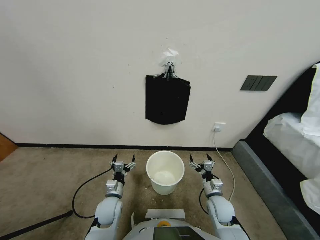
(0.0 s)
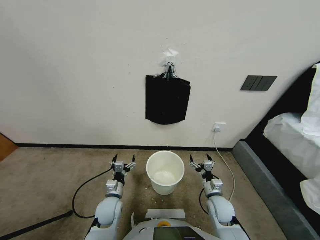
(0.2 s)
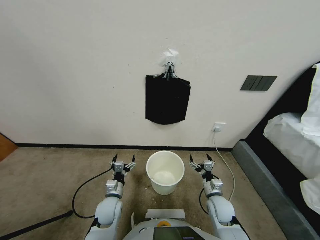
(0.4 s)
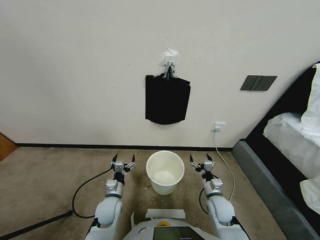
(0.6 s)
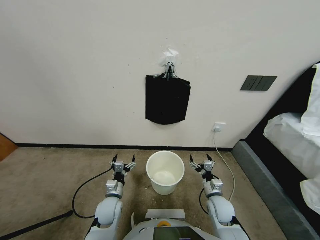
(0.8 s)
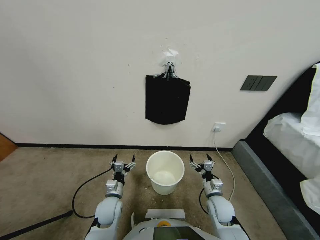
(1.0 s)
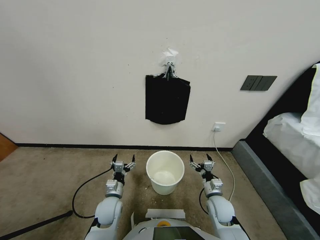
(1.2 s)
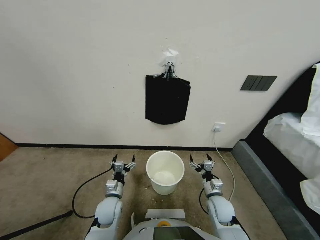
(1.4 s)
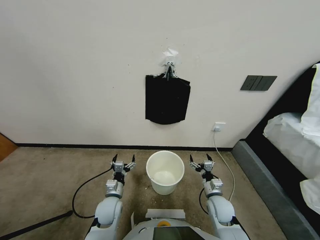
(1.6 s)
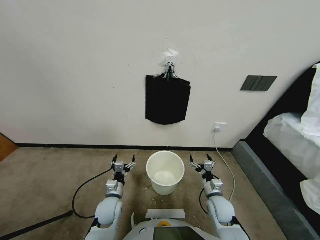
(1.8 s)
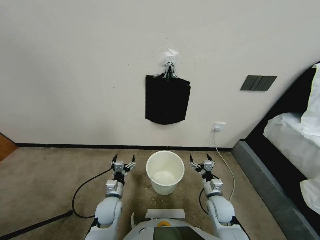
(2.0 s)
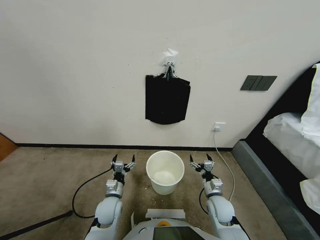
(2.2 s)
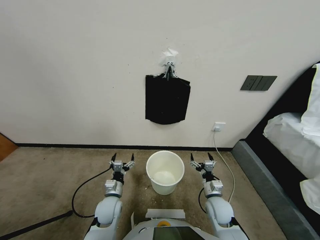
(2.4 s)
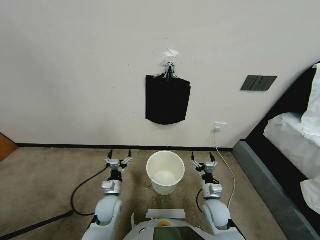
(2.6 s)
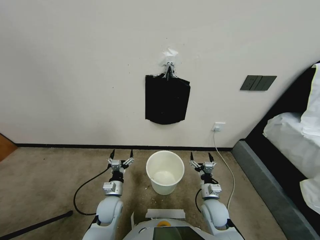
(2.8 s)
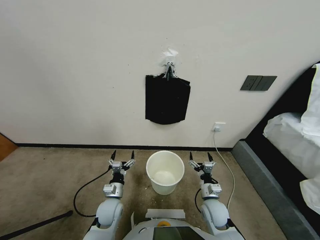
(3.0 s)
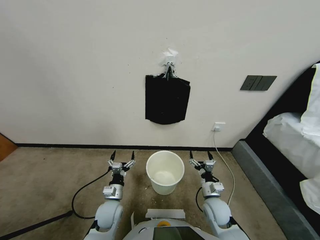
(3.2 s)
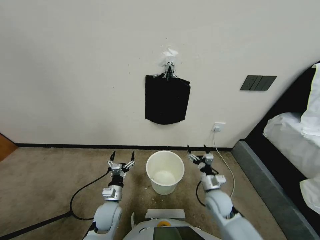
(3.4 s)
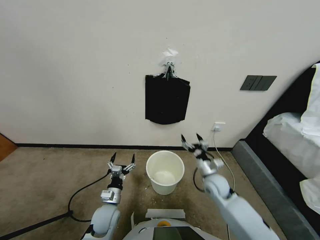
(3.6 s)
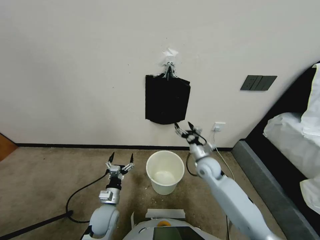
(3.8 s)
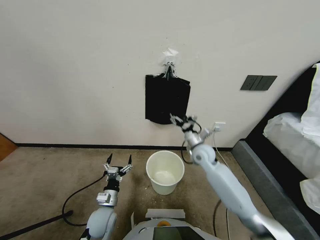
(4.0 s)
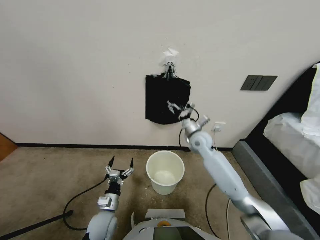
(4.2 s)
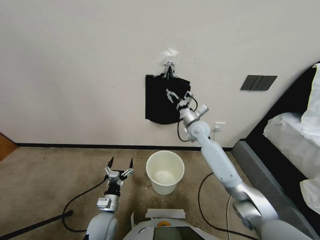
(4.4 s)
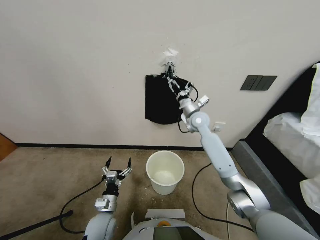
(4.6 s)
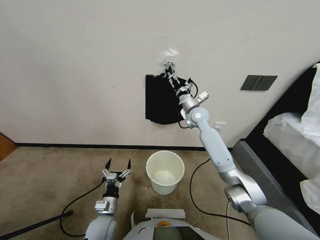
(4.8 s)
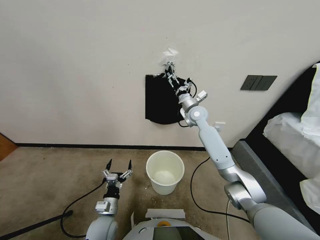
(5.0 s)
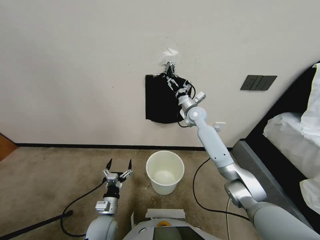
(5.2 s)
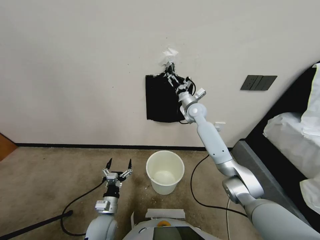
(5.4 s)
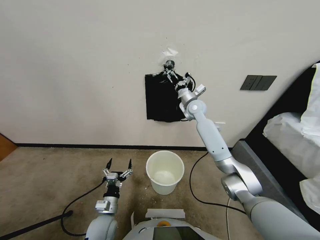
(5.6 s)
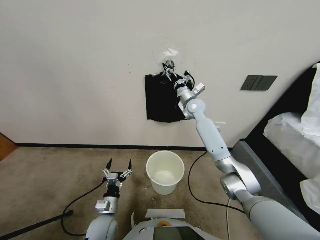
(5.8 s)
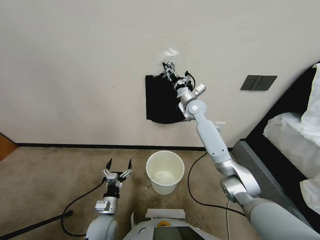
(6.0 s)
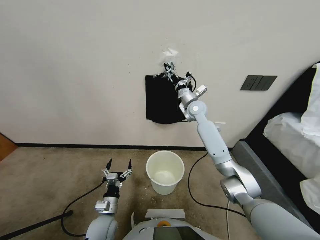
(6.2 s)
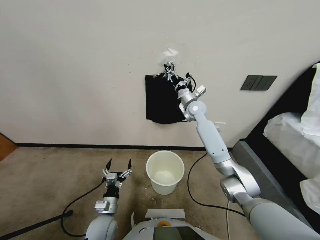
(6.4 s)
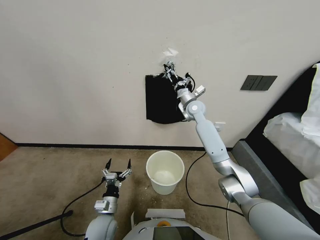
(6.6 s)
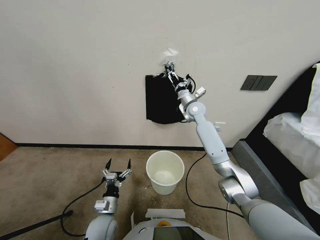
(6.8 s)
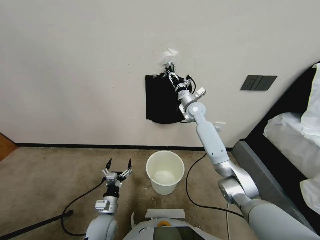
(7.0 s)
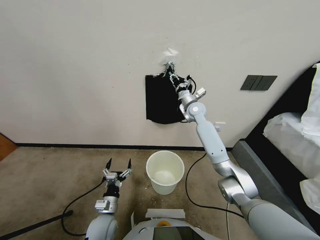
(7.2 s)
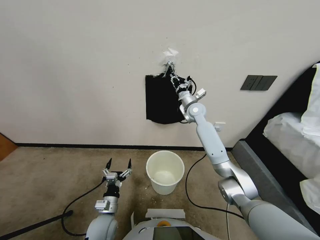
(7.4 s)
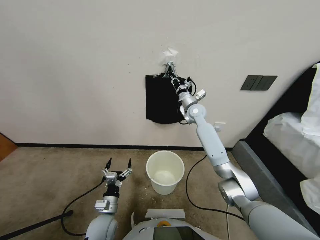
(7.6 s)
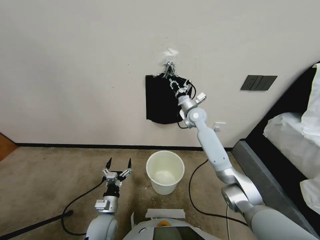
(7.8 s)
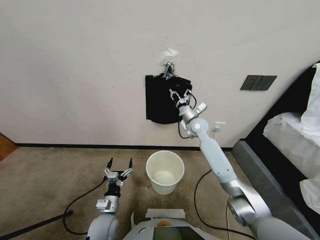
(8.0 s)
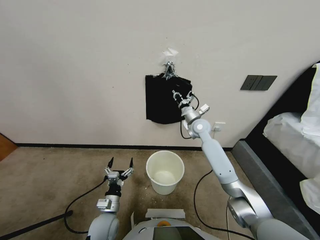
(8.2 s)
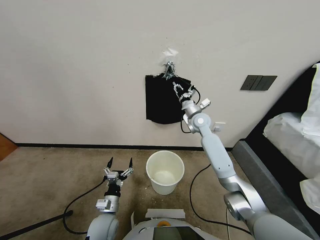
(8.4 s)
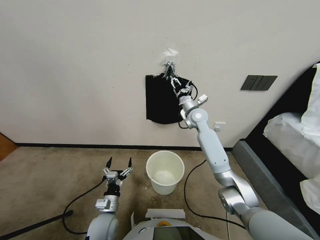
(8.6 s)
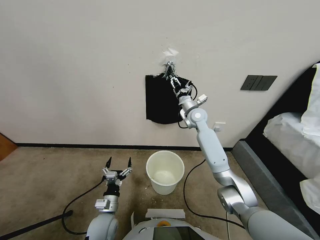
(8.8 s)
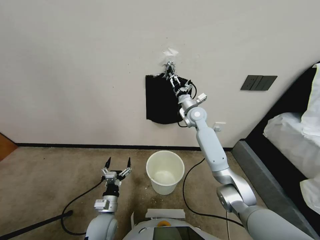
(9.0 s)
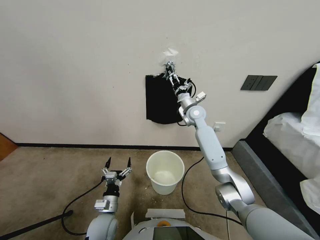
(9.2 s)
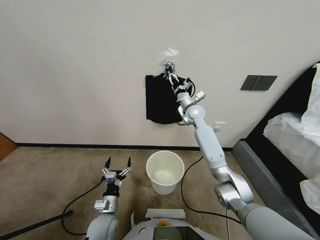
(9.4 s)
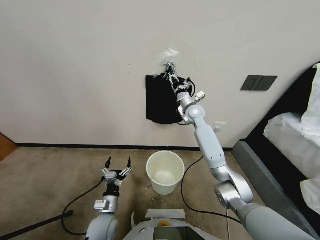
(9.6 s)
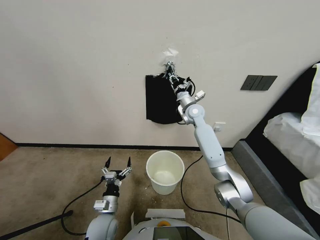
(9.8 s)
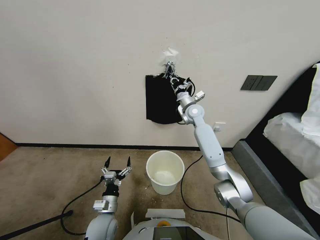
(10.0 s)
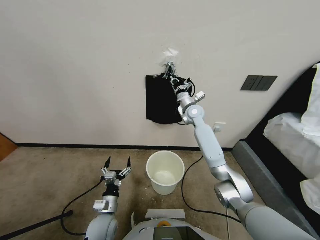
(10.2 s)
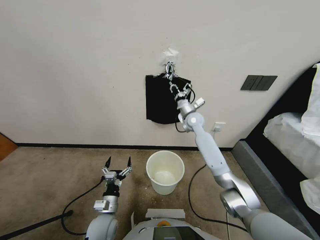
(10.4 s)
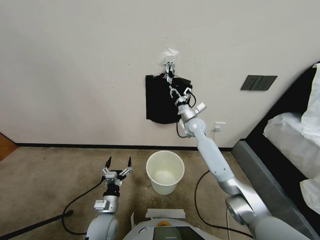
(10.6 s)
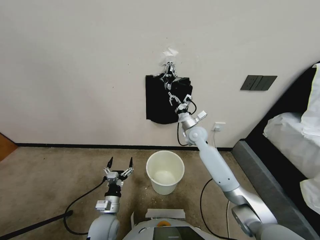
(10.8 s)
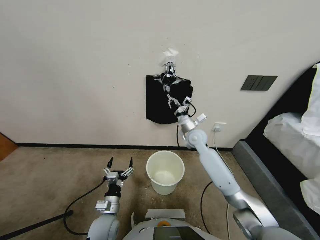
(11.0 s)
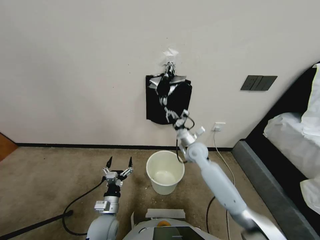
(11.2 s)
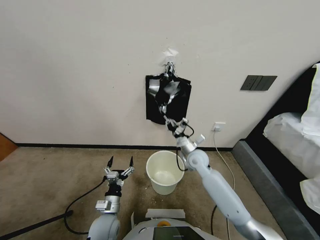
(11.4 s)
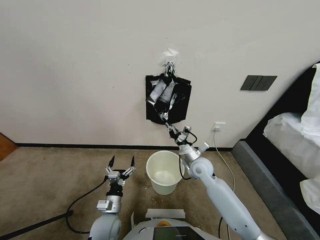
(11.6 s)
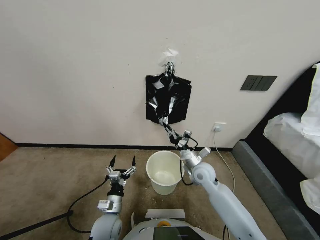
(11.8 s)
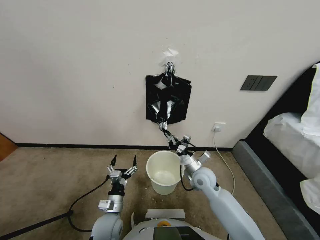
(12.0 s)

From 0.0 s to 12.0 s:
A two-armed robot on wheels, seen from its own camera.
Task of the whole recording: Place a trash bag onto the trash bin.
From 1.6 s to 3.0 s: The grippers move only a little.
From 3.0 s to 4.4 s: The right gripper shifts about 40 cm forward and upward.
From 4.4 s to 6.0 s: The right gripper heads forward, covering approximately 5 cm.
From 6.0 s to 7.6 s: The right gripper closes up.
From 7.6 s to 9.0 s: The right gripper opens its fingers.
From 9.0 s to 10.4 s: The right gripper moves roughly 5 cm, and closes up.
From 10.4 s to 12.0 s: The right gripper is displaced backward and downward by about 25 cm.

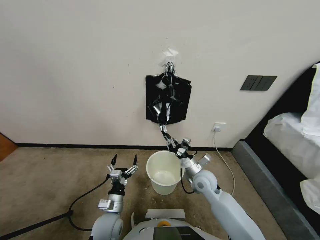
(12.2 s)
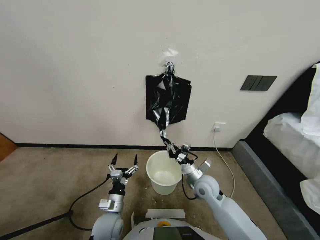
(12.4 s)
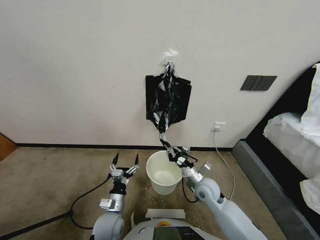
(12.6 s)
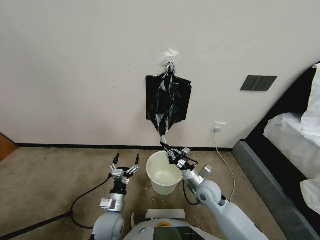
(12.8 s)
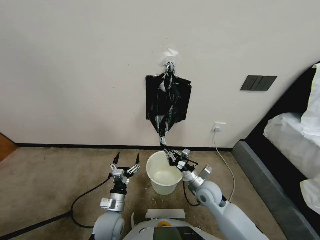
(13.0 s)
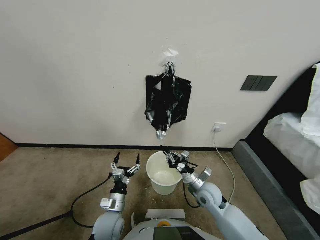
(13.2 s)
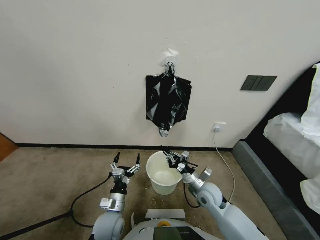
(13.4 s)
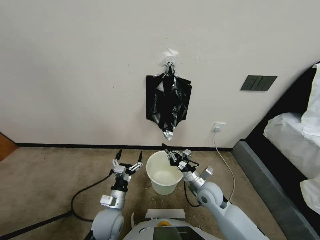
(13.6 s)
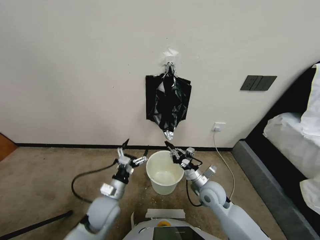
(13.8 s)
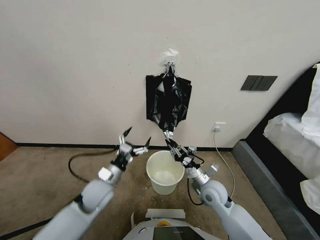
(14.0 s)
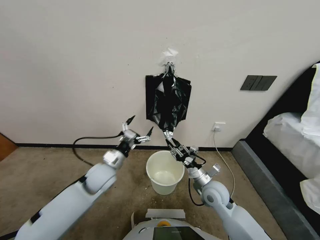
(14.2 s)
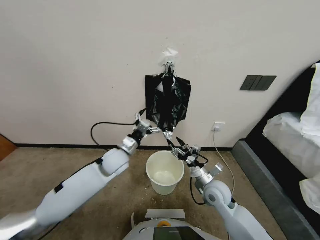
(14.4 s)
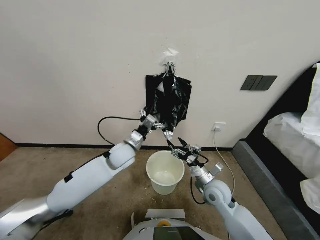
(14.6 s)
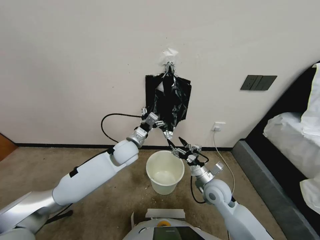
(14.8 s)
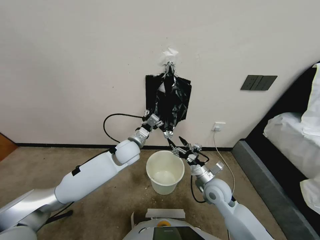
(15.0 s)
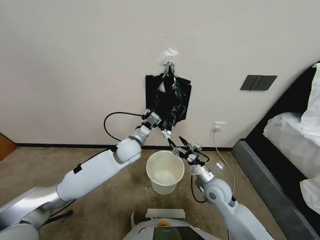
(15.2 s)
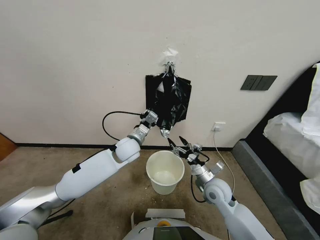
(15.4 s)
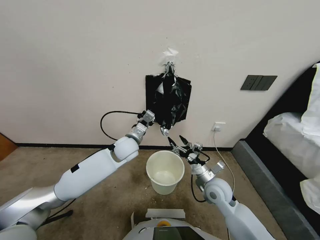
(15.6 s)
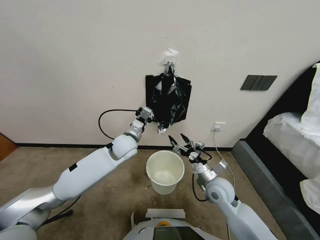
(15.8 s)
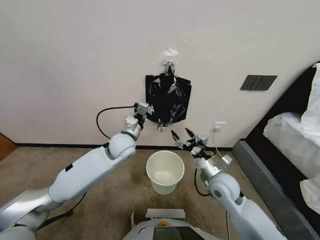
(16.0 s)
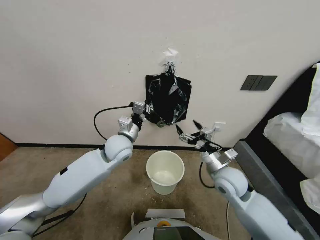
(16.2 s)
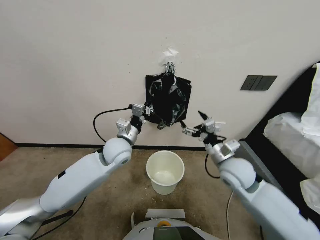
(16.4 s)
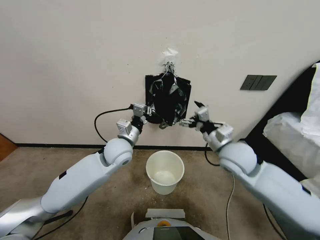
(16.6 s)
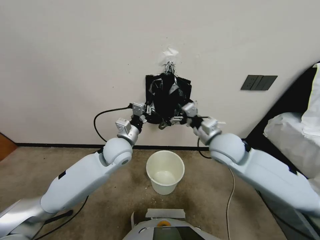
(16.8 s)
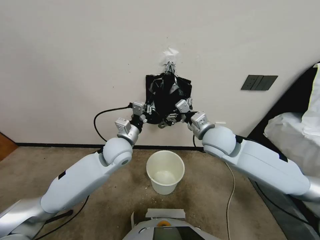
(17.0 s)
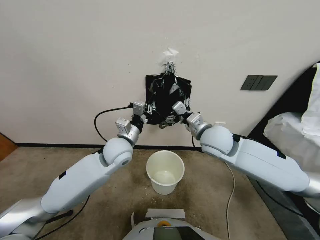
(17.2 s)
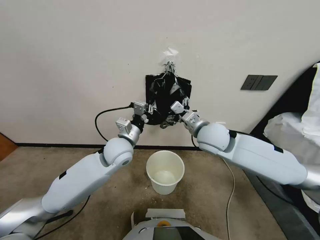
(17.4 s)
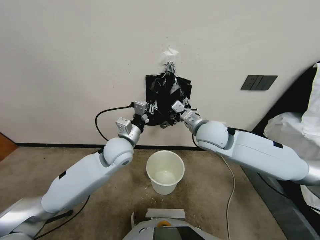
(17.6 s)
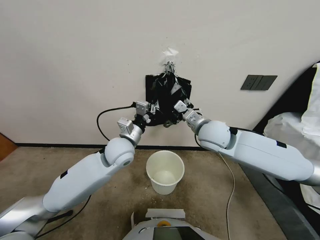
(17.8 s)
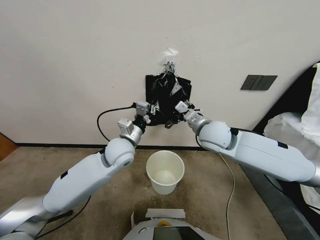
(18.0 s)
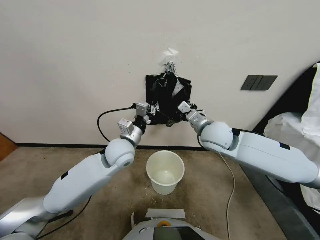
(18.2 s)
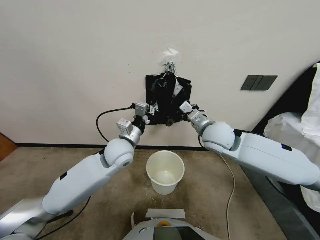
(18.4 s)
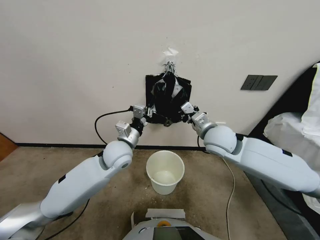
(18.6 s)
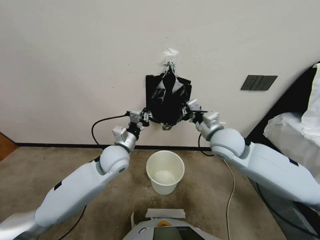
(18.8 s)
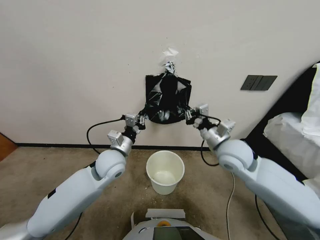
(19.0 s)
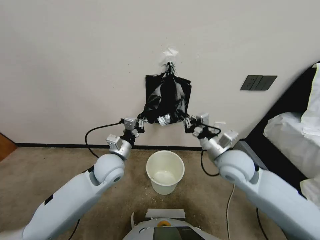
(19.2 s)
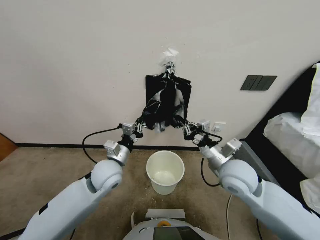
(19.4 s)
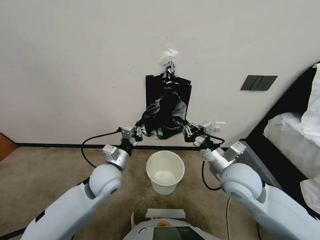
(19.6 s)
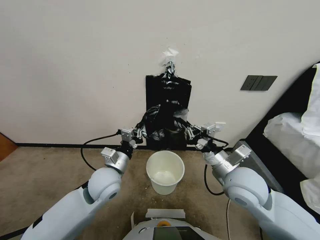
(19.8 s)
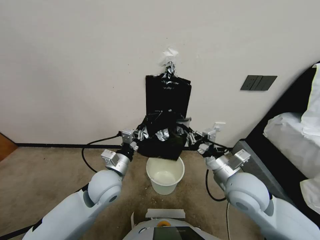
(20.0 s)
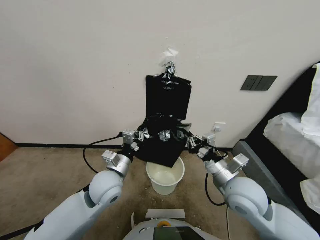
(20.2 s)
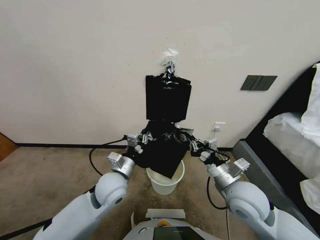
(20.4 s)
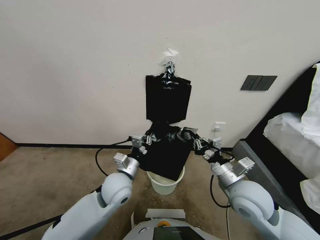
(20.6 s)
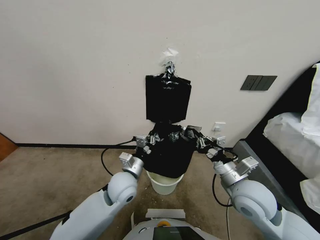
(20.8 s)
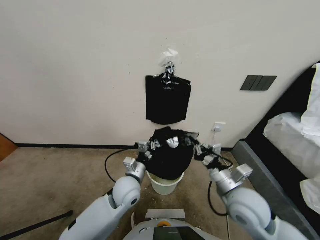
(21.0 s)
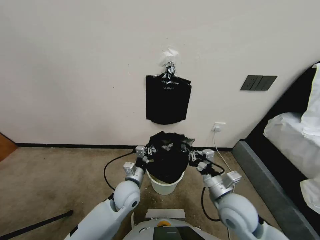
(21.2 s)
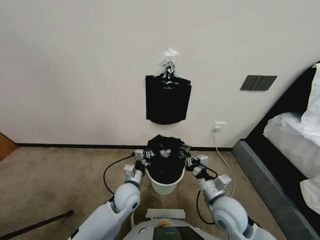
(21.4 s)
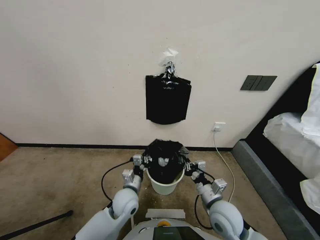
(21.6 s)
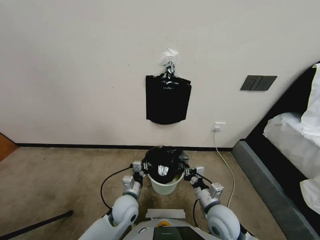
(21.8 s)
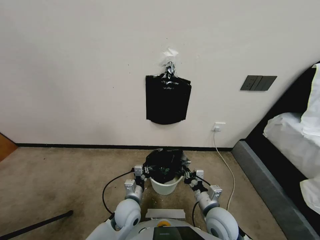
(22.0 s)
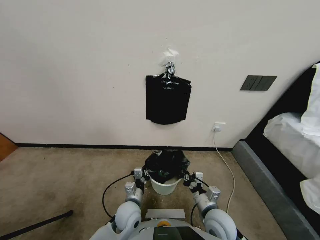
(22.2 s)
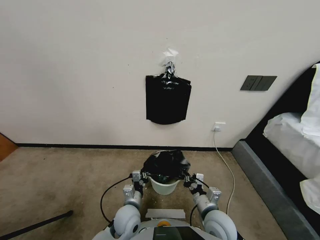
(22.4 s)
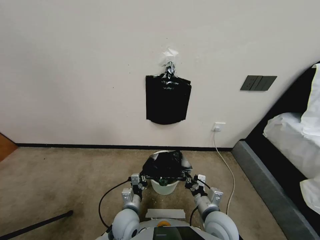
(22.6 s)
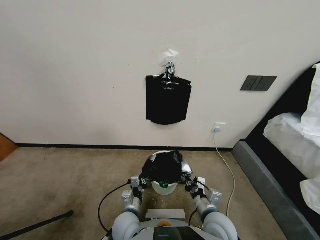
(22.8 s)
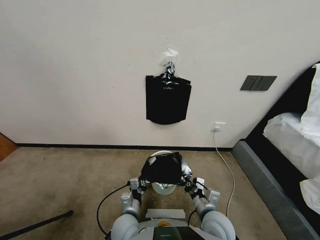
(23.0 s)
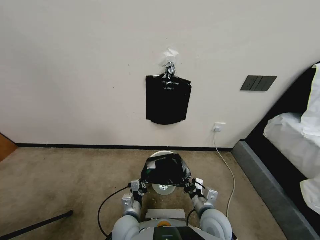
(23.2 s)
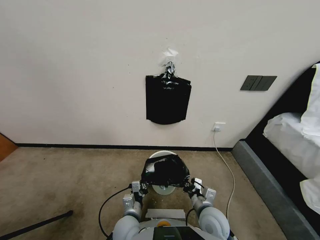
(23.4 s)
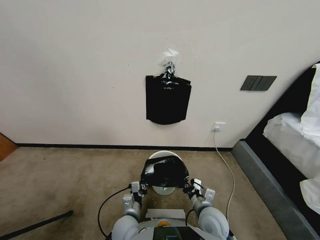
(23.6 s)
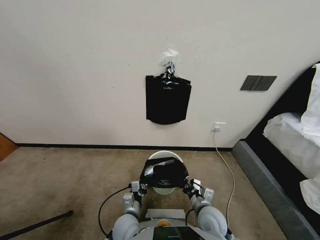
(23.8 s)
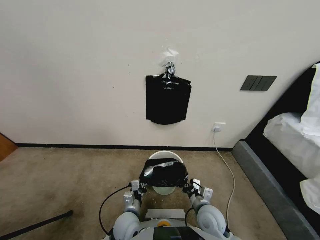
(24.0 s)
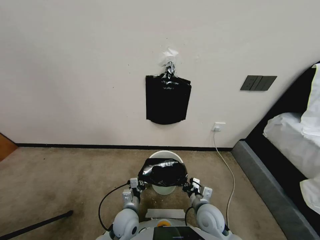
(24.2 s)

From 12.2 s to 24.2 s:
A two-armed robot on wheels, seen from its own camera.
Task of the whole recording: Place a trash bag onto the trash bin.
From 12.2 s to 13.8 s: The left gripper travels upward and forward by some 10 cm.
From 13.8 s to 15.2 s: The left gripper travels forward, to the right and upward by some 20 cm, and closes, while the right gripper opens.
From 15.2 s to 16.6 s: The left gripper ends up about 5 cm from where it was; the right gripper heads upward, covering roughly 20 cm.
From 16.6 s to 18.2 s: The right gripper ends up some 5 cm from where it was, and closes its fingers.
From 18.2 s to 19.8 s: The two grippers go some 15 cm backward and downward.
From 19.8 s to 21.2 s: The left gripper moves downward and to the right, about 10 cm, while the right gripper heads downward, covering approximately 10 cm.
From 21.2 s to 22.6 s: The right gripper travels downward by about 5 cm, while the left gripper is displaced backward and downward by roughly 10 cm.
From 22.6 s to 24.2 s: The right gripper shifts some 5 cm downward.
